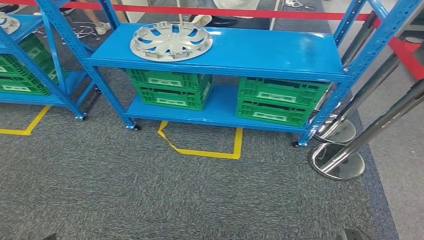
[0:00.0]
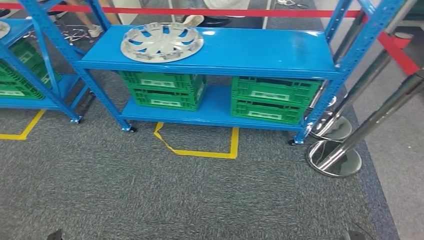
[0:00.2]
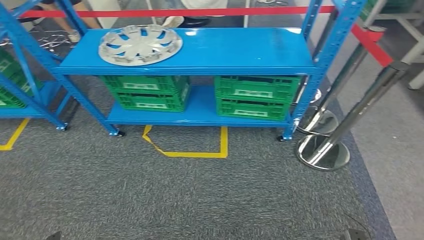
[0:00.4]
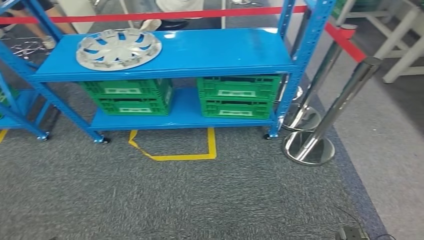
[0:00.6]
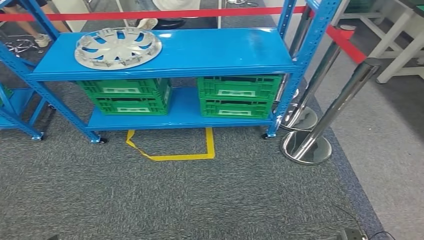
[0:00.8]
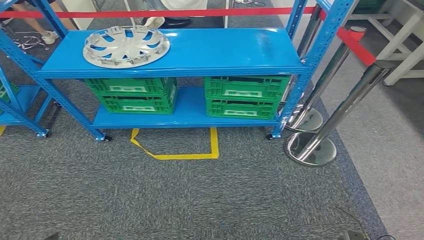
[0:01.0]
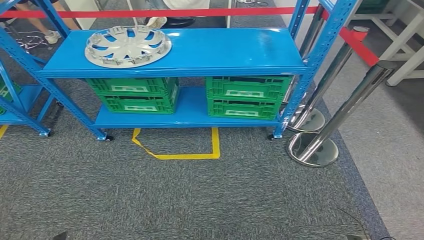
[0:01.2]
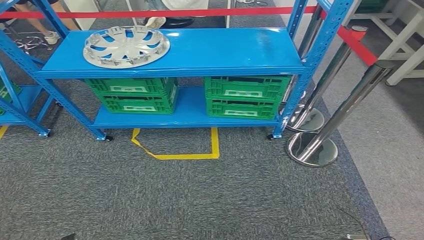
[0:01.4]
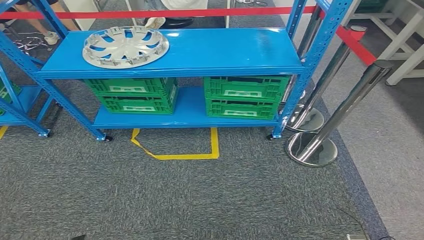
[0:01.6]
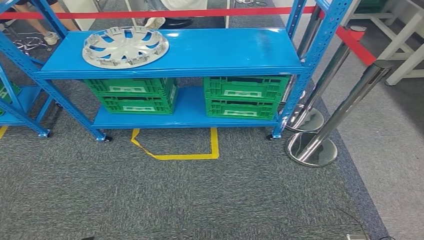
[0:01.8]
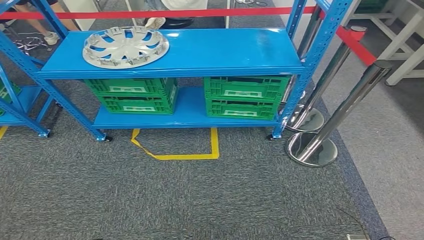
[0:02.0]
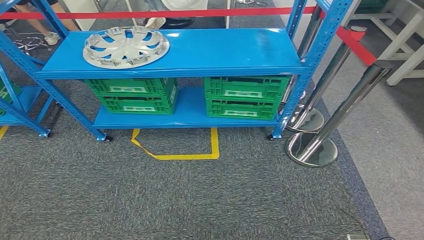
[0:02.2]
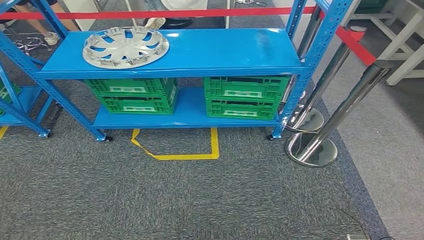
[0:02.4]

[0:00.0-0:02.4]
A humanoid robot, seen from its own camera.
Step, 0:00.0 to 0:02.4: Return to the initial position at the workbench.
0:01.2 to 0:02.4: The right hand heads backward, covering roughly 5 cm, while the left hand shifts some 10 cm to the right and backward.
